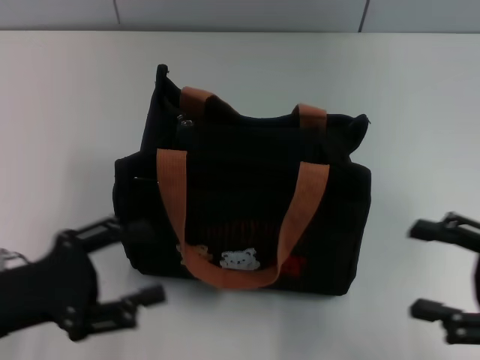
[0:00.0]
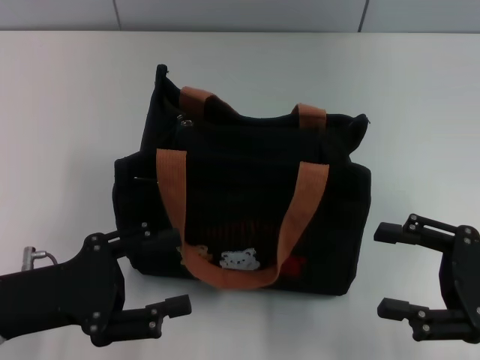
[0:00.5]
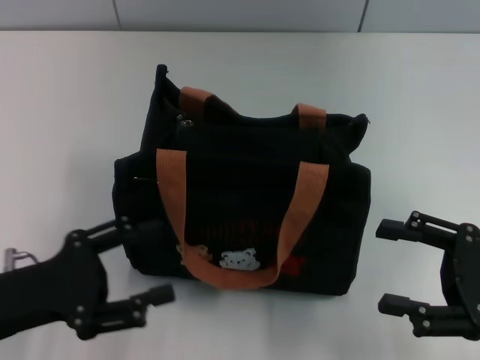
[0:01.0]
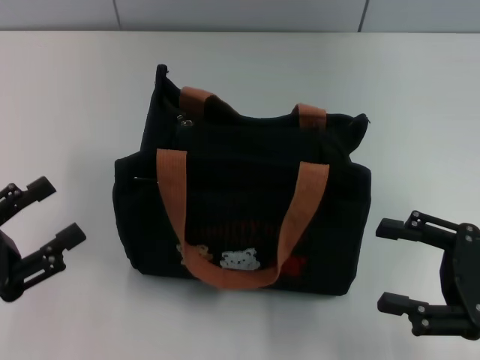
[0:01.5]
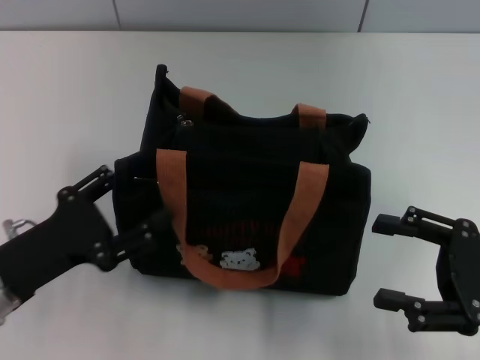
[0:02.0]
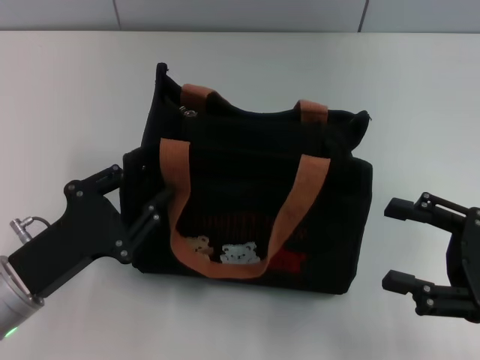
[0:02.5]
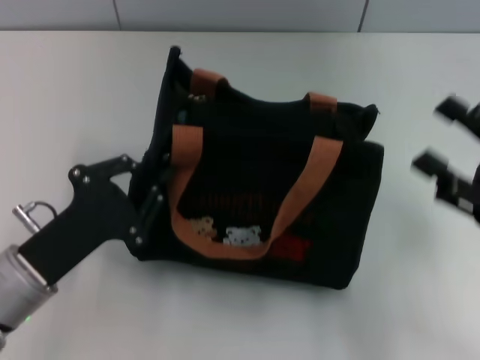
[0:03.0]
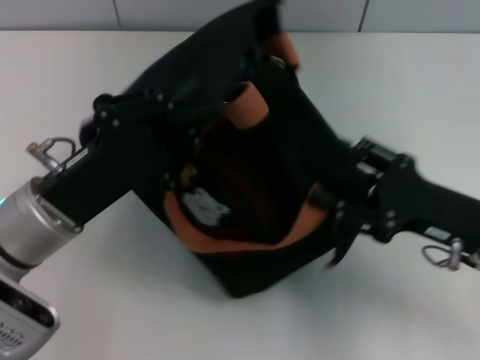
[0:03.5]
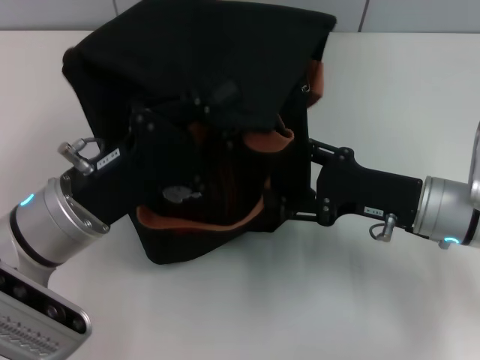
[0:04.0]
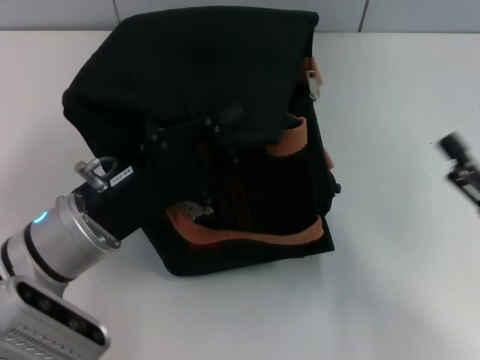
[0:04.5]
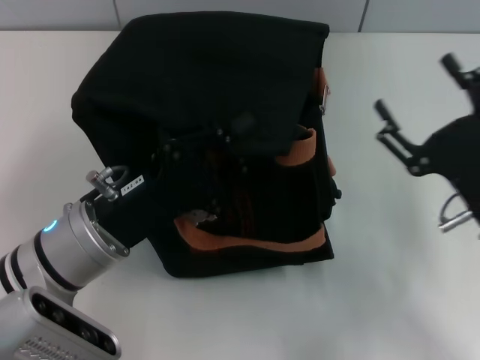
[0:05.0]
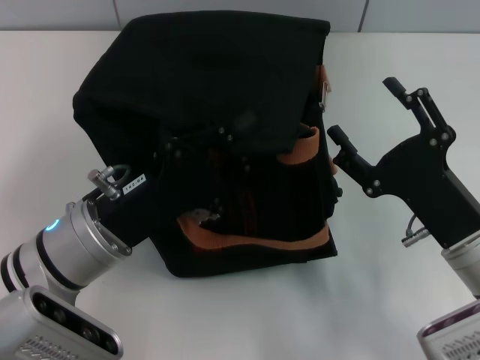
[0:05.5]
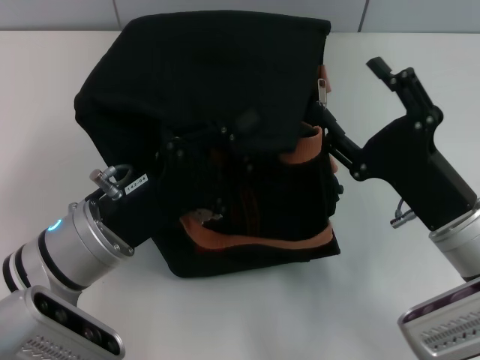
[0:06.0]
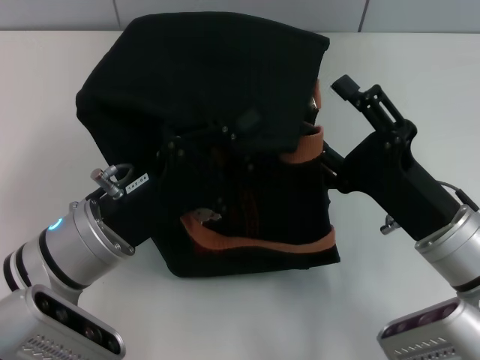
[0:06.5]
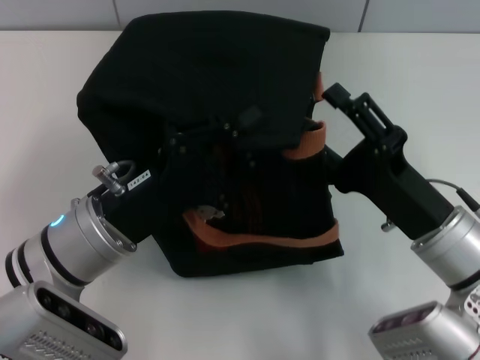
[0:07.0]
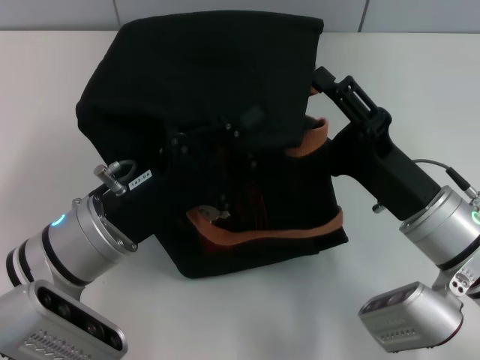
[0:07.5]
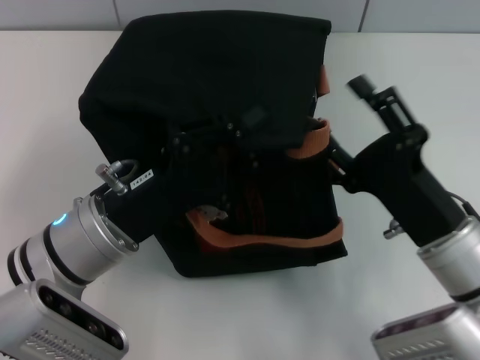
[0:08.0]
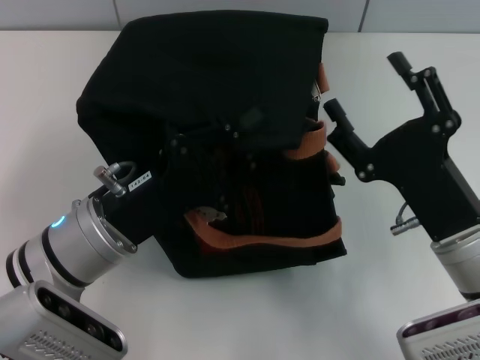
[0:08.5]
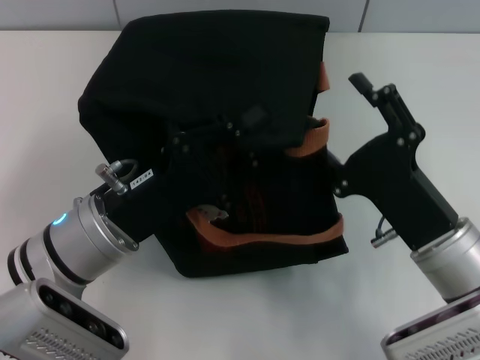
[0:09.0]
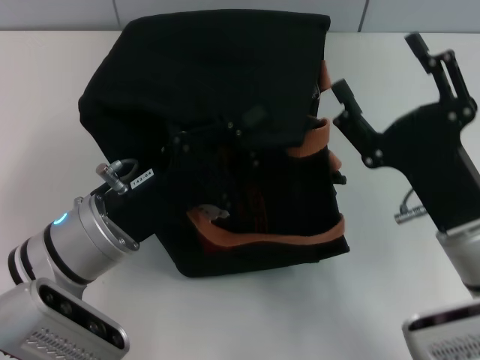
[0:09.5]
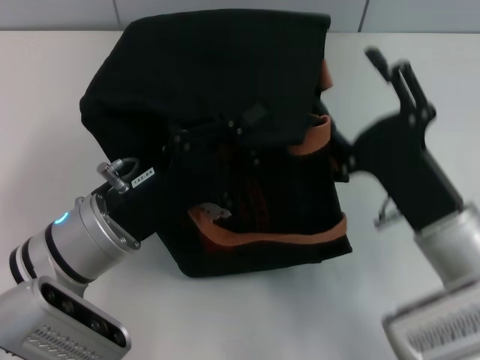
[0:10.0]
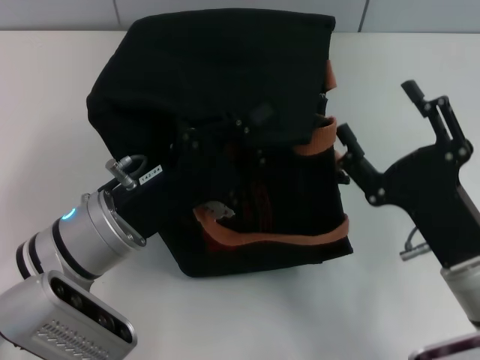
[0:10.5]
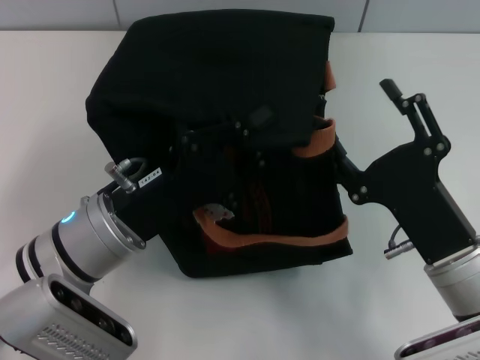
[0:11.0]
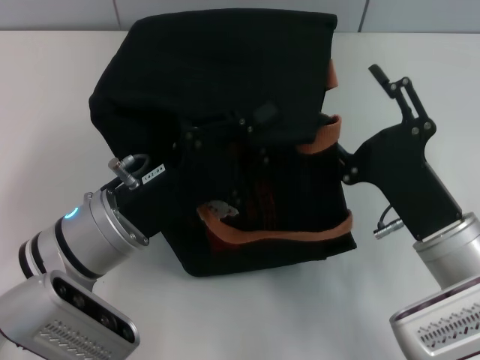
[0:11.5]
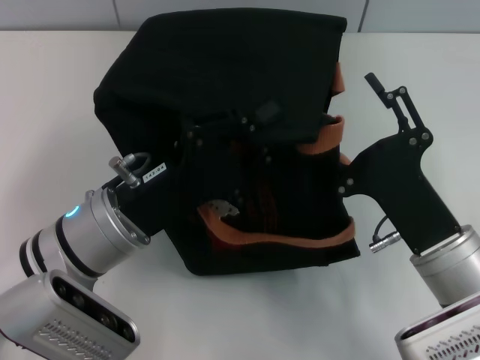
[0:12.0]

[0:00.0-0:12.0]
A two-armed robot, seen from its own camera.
0:02.0 to 0:04.0: The right gripper goes some 10 cm forward and to the left, while the left gripper is displaced to the right by about 10 cm, and closes up.
0:04.0 to 0:06.0: The right gripper travels backward by roughly 5 cm.
0:08.0 to 0:10.0: The grippers move only a little.

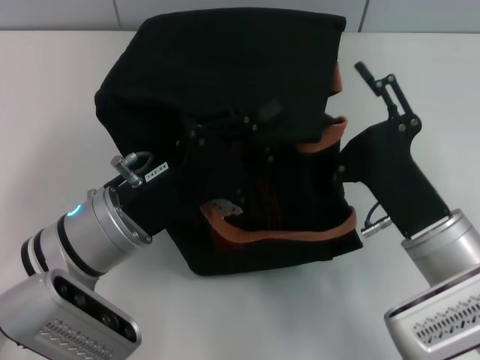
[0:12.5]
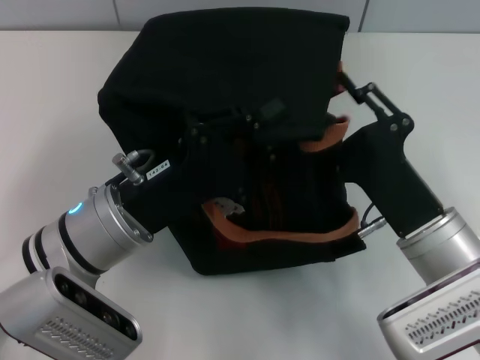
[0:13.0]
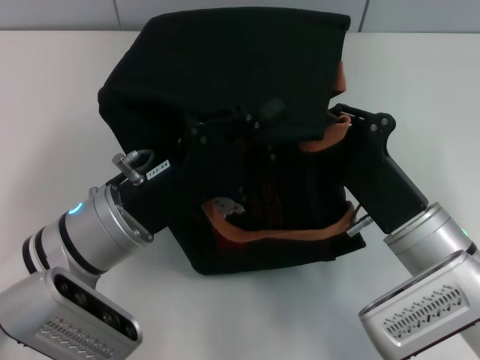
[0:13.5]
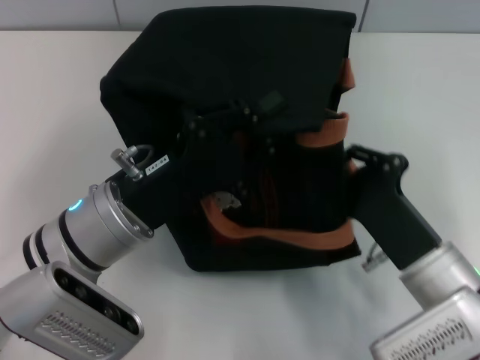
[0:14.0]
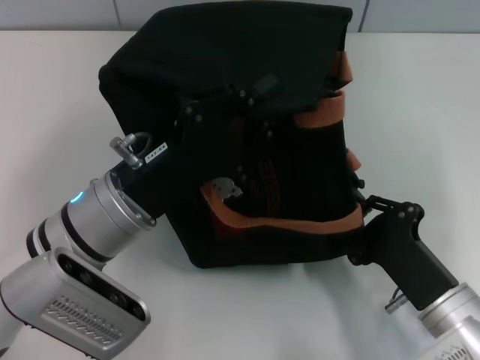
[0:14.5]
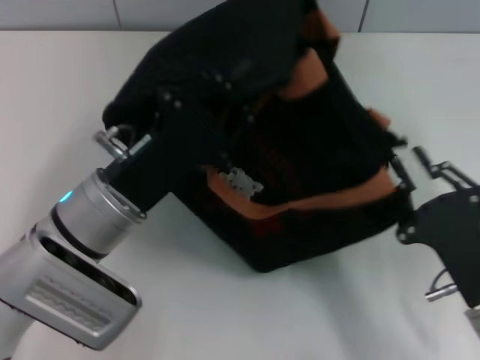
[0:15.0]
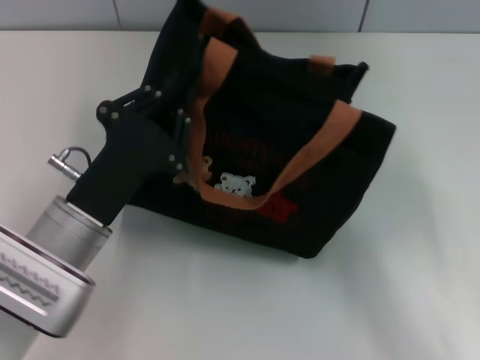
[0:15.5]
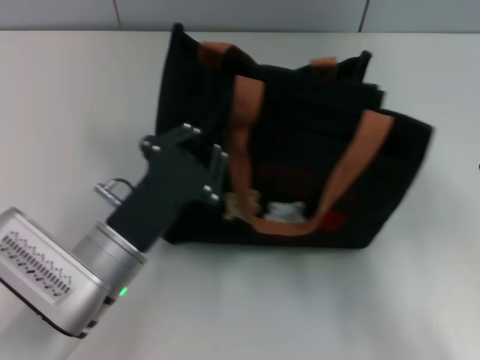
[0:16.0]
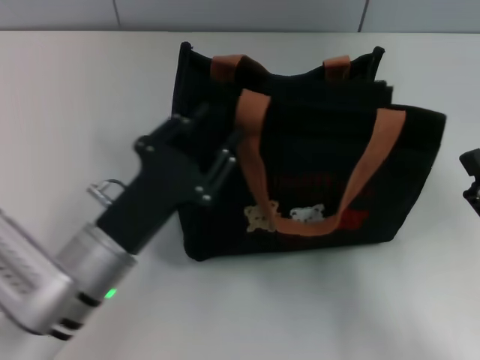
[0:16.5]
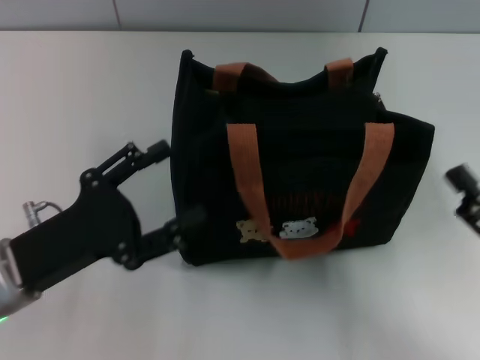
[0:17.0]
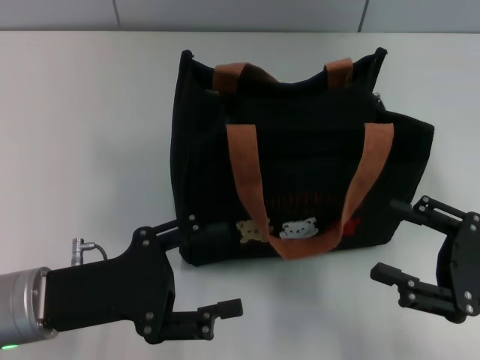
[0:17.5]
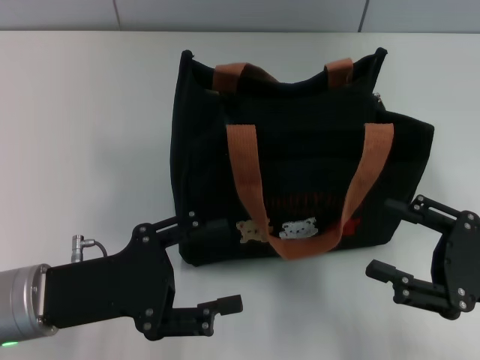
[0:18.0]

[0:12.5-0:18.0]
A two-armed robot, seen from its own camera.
Step, 0:12.5 to 0:15.0: Pull open the zipper with your right hand.
Step, 0:15.5 to 0:16.5: Grab the bag with your left hand.
0:12.5 to 0:14.5: The right gripper travels downward by roughly 5 cm, and closes.
0:14.5 to 0:16.0: The right gripper goes roughly 10 cm to the right and upward, and opens its fingers, while the left gripper moves roughly 5 cm.
0:16.0 to 0:18.0: The left gripper travels to the left by approximately 10 cm, and opens up.
